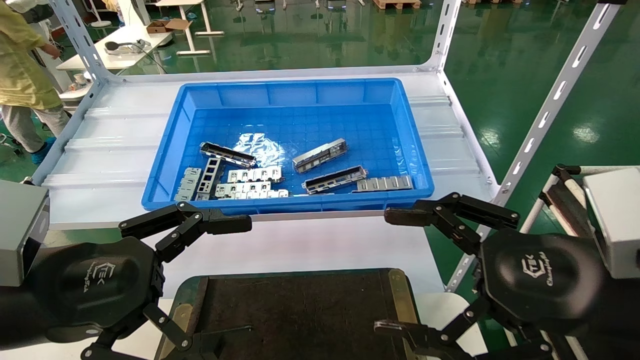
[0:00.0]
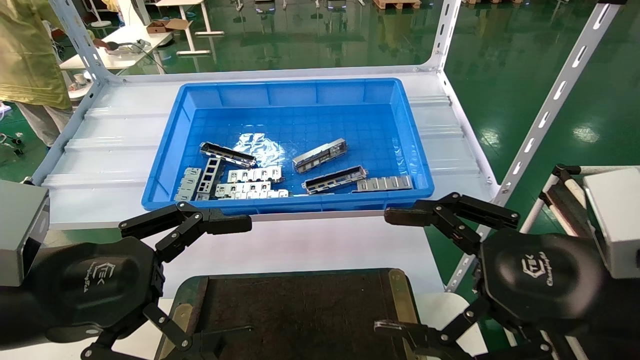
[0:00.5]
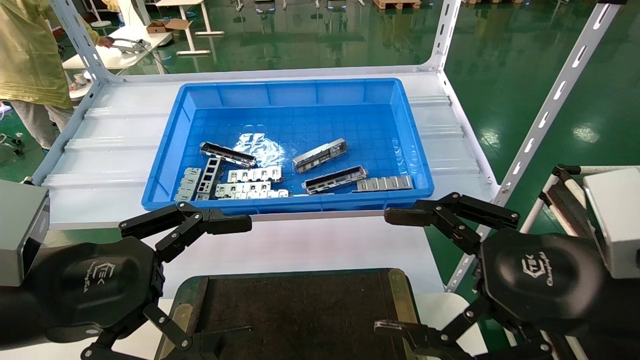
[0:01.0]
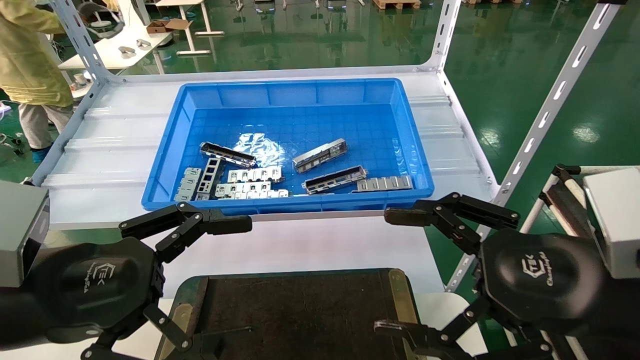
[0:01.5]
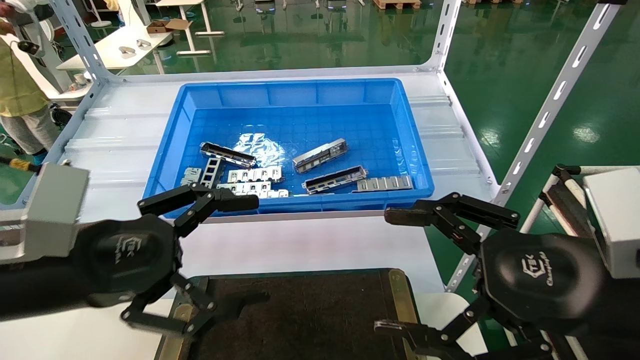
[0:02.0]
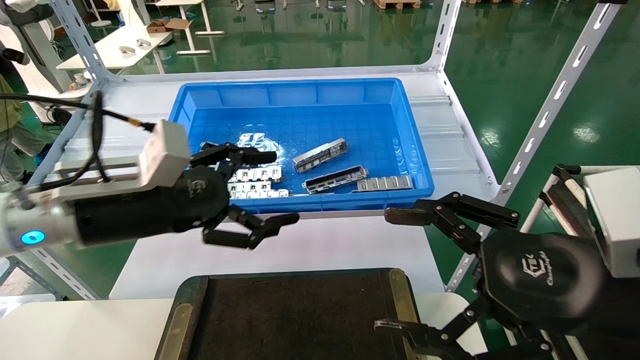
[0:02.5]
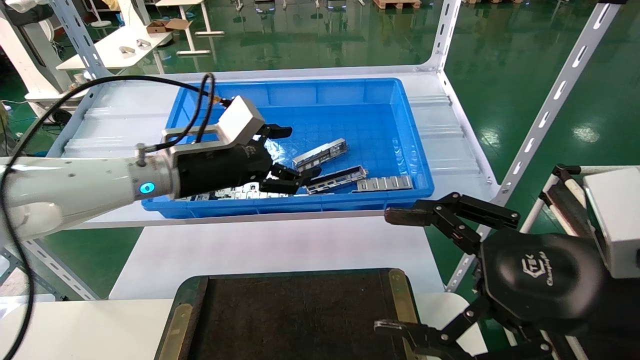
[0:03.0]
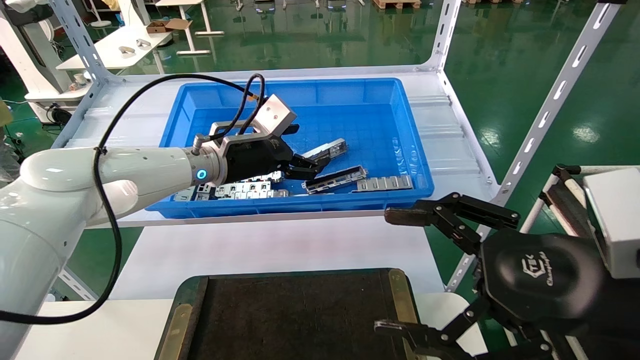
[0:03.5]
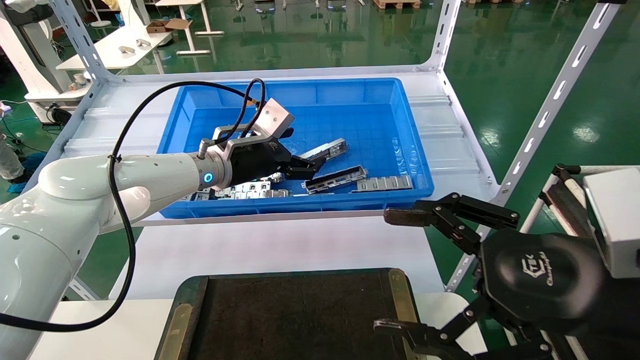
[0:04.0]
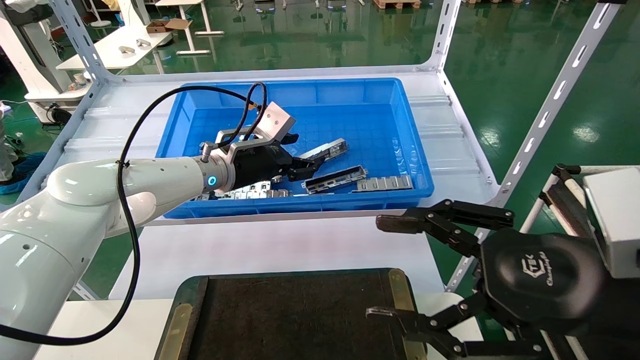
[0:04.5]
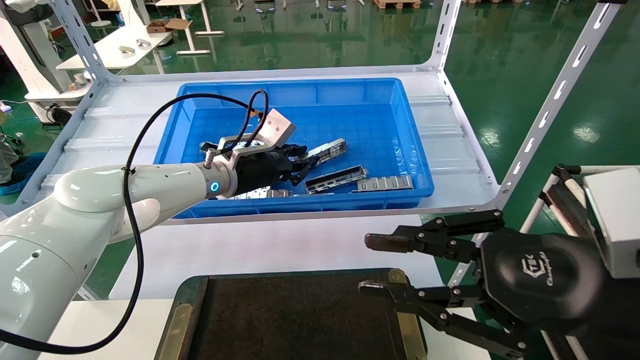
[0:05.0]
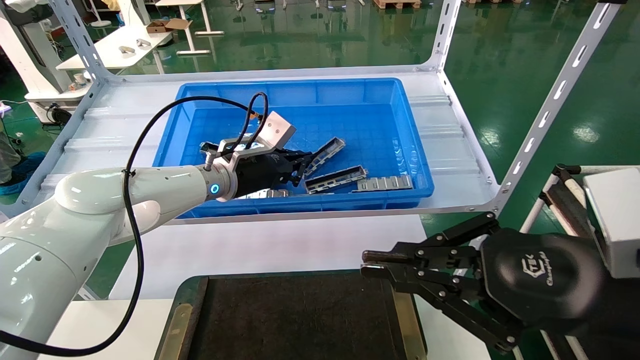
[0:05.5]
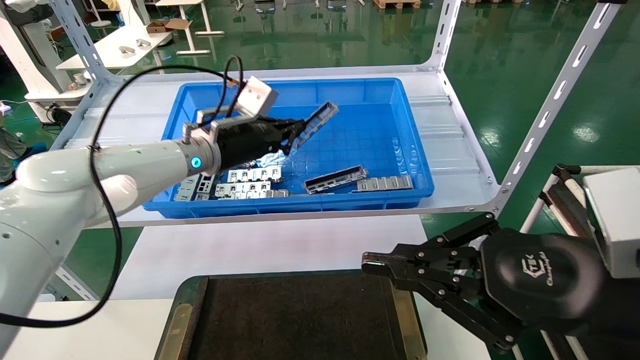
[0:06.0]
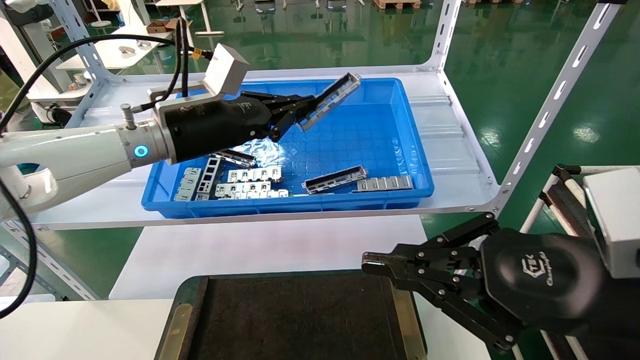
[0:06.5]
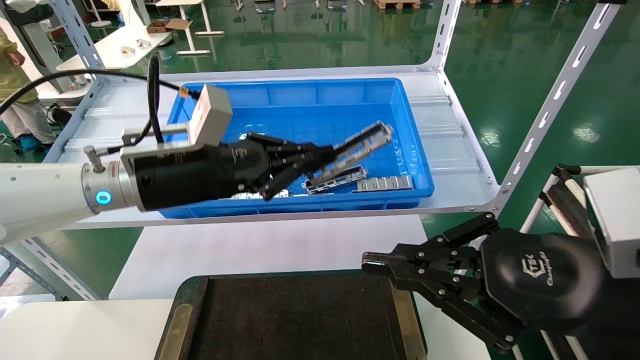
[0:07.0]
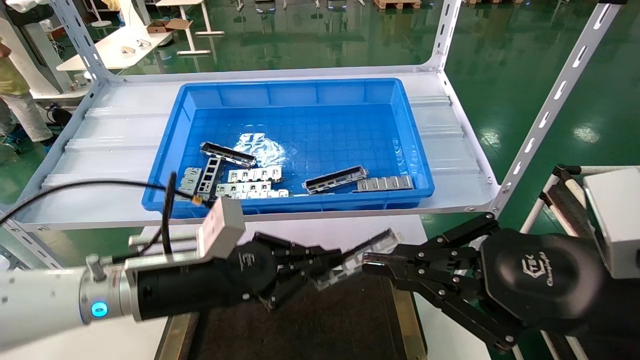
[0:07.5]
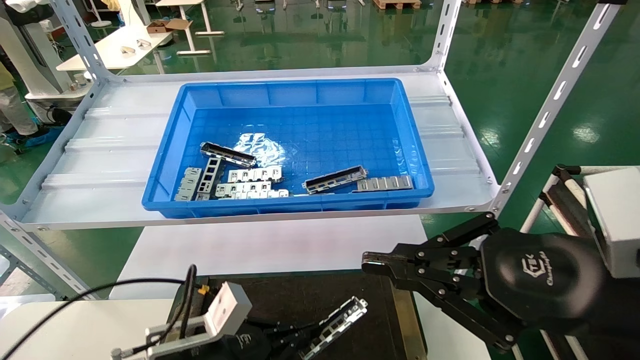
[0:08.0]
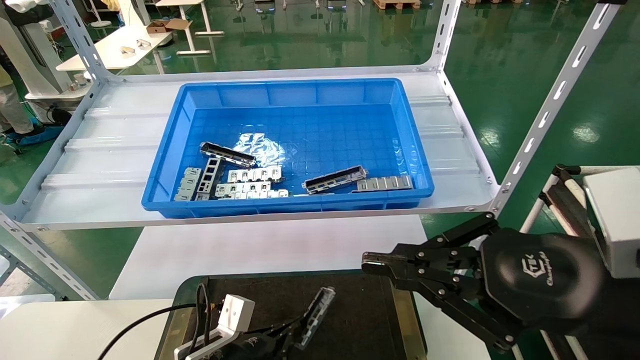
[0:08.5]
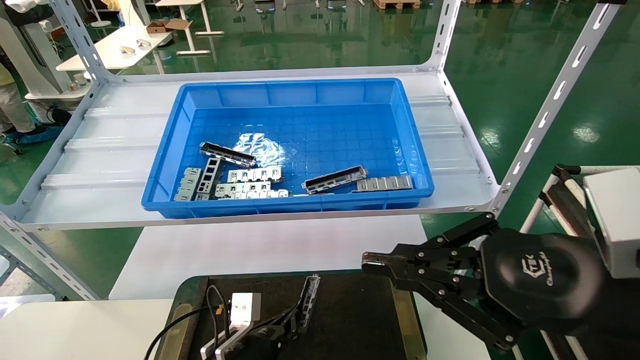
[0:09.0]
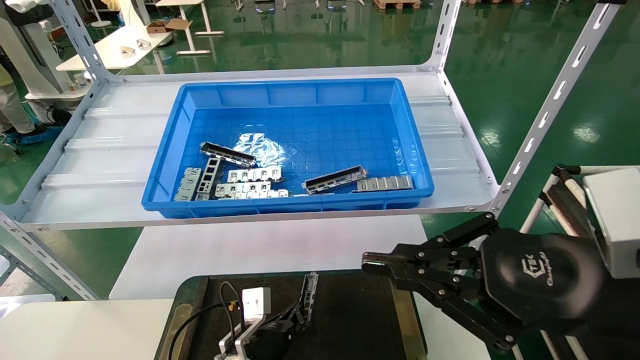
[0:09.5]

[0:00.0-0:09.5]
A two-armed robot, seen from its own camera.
Task of the whole recording: Grasp the part with one hand and place it on the black container.
Step, 0:02.0 to 0:05.0: Pick up the front USB bracket from the feeding area.
0:00.0 to 0:02.0: There are only small adjustments of the grippers.
0:02.0 to 0:04.0: The left gripper travels forward and to the right by roughly 30 cm.
0:04.0 to 0:05.5: The left gripper closes up. The right gripper closes its fingers.
0:05.5 to 0:07.5: The left gripper travels backward and downward by roughly 20 cm.
0:07.5 to 0:09.5: The left gripper is displaced downward by some 25 cm.

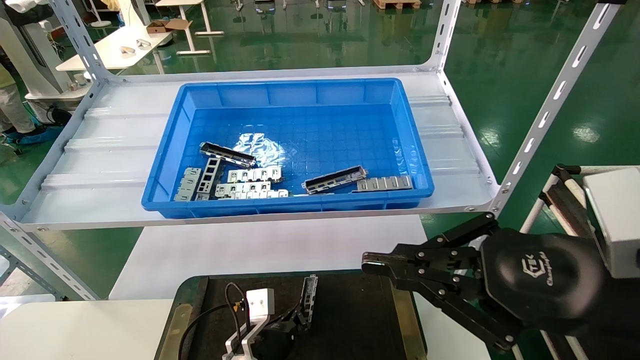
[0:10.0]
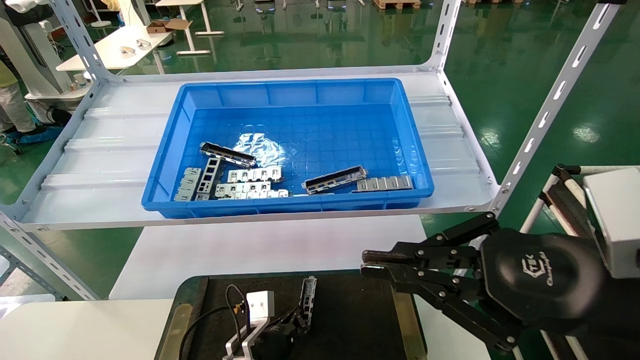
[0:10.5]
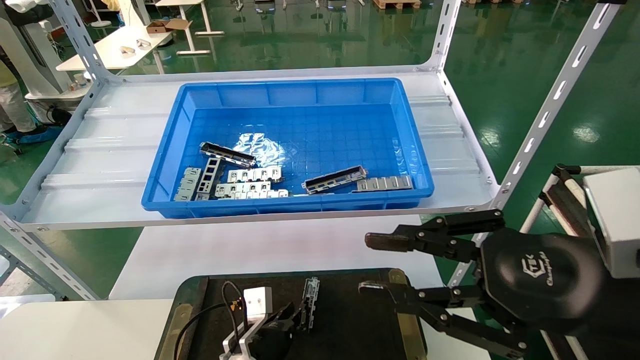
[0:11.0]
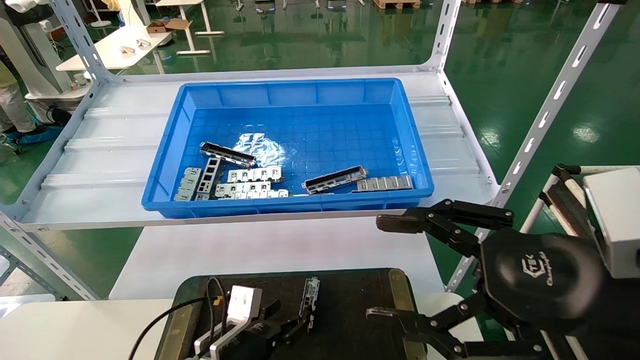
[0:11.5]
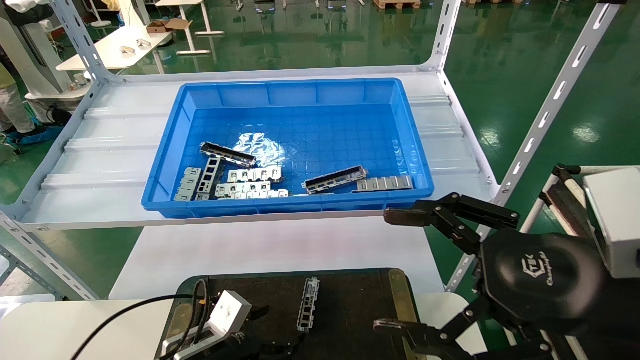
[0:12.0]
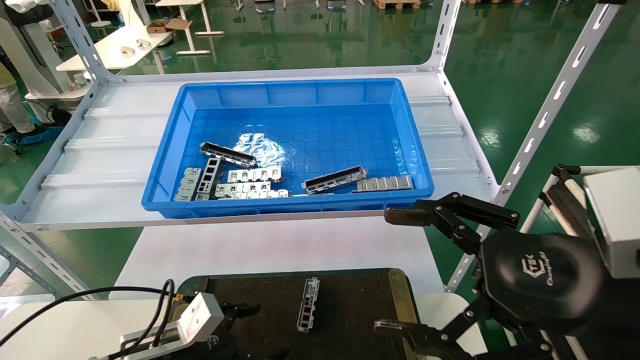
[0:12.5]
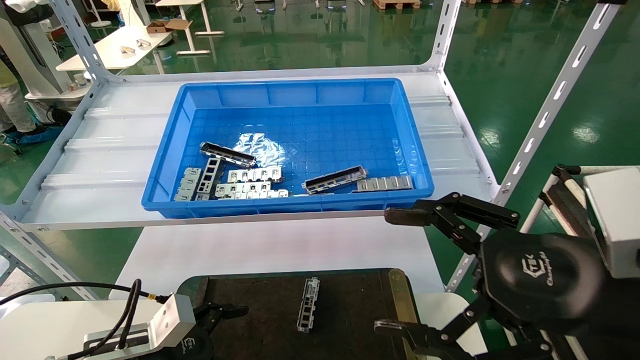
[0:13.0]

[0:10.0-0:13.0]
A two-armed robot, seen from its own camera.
Task of the whole recording: Grasp the part with one hand and place it on the black container.
0:10.0 to 0:11.5: The left gripper ends up approximately 5 cm from where it was, and opens up, while the right gripper opens its fingers.
0:11.5 to 0:13.0: The left gripper travels to the left, upward and backward by about 15 cm, and opens up, while the right gripper opens up.

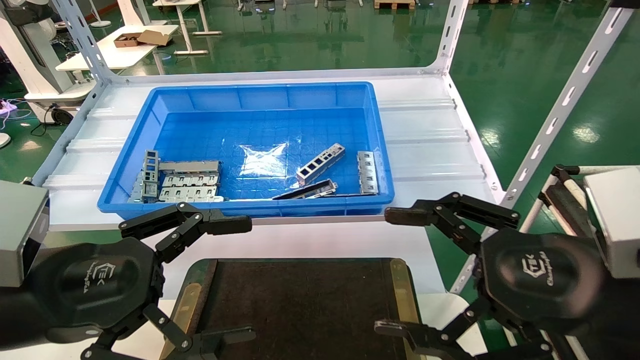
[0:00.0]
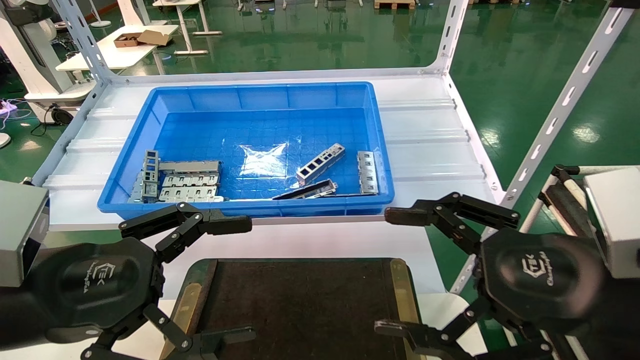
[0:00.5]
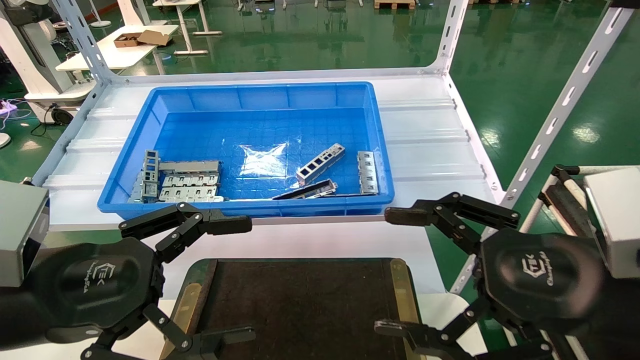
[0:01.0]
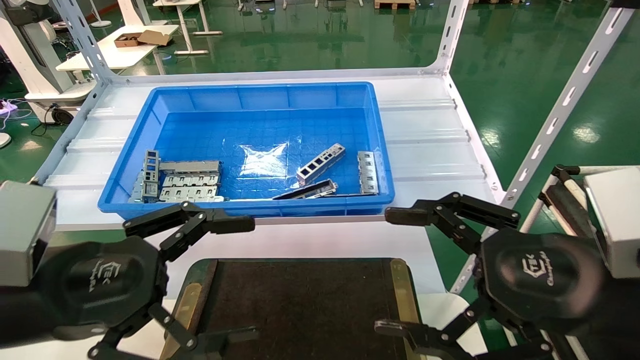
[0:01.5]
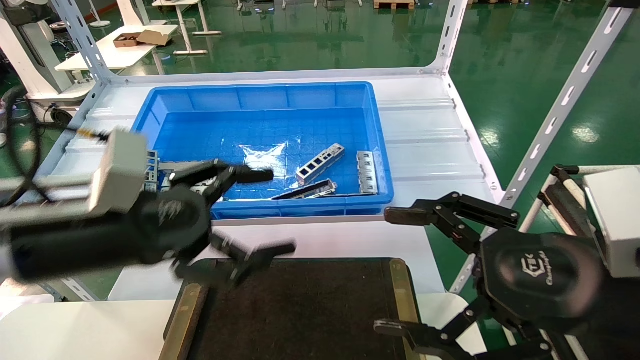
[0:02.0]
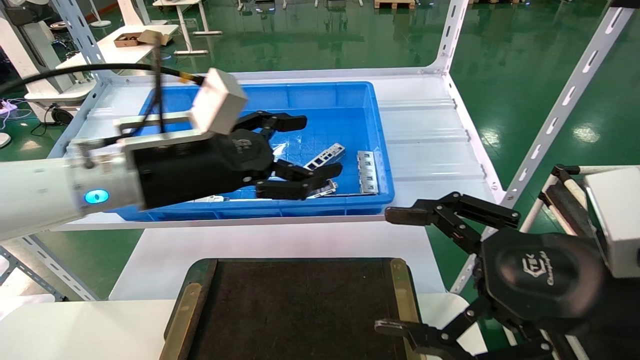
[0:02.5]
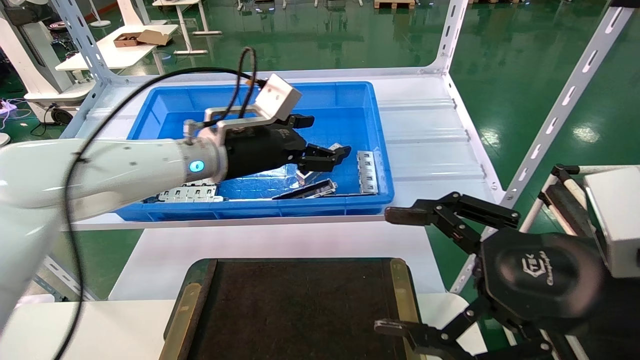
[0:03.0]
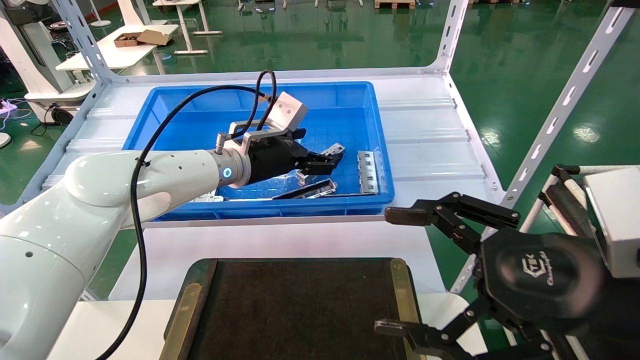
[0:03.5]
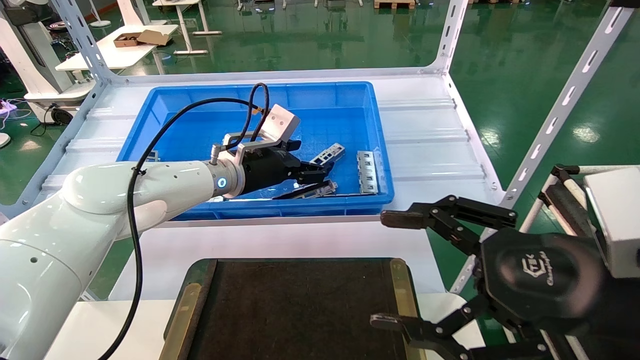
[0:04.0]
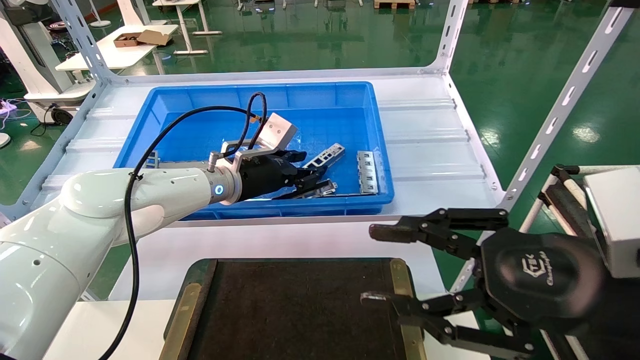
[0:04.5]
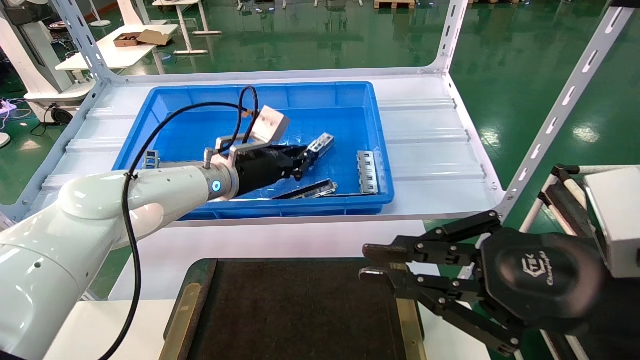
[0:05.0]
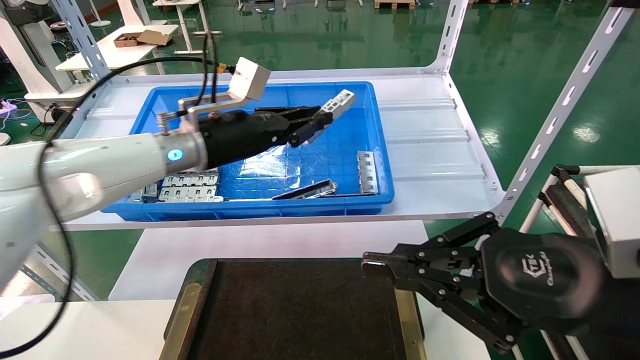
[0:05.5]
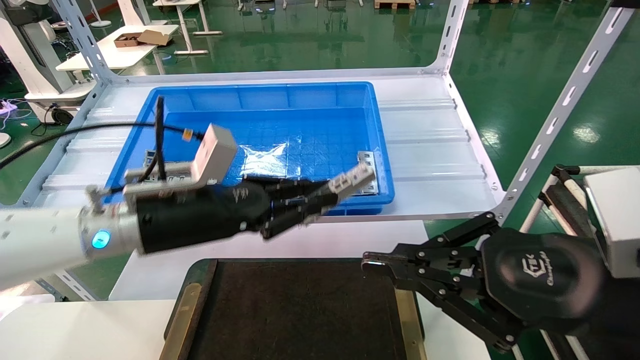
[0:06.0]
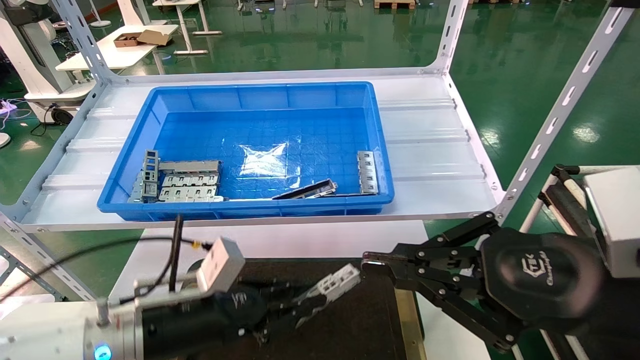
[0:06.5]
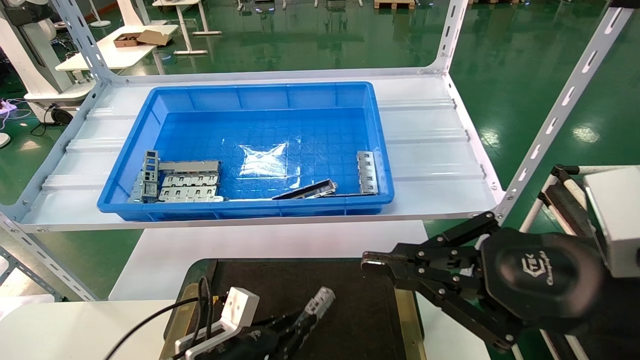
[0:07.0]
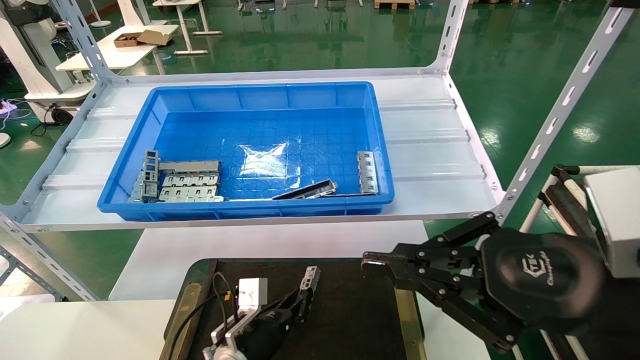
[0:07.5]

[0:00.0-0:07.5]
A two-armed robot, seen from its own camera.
Task of the whole recording: Grasp the part with one hand and place it on the black container.
Step, 0:02.0 to 0:04.5: Pick up the front USB bracket from the feeding area.
0:00.0 to 0:02.0: The left gripper moves forward, roughly 5 cm.
0:02.0 to 0:04.0: The left gripper heads forward and to the right, covering some 25 cm.
0:04.0 to 0:05.5: The left gripper changes place by roughly 10 cm, and closes its fingers. The right gripper closes up.
0:05.5 to 0:07.5: The left gripper travels downward by approximately 35 cm.
